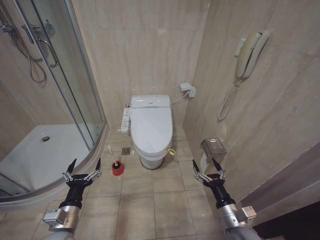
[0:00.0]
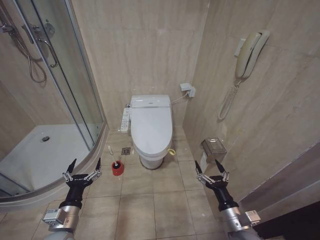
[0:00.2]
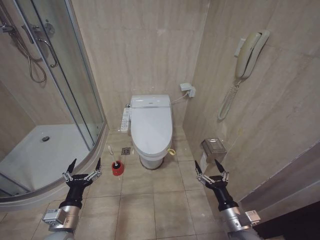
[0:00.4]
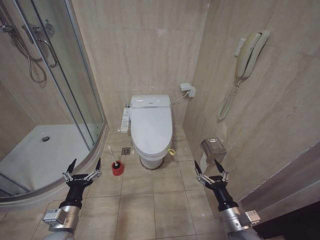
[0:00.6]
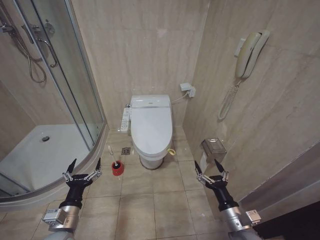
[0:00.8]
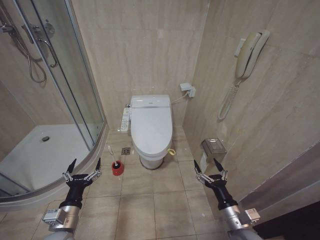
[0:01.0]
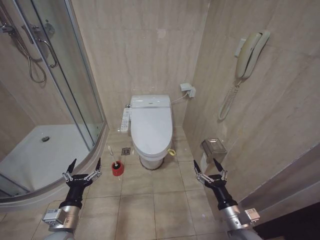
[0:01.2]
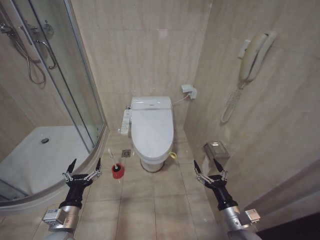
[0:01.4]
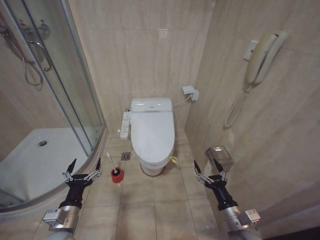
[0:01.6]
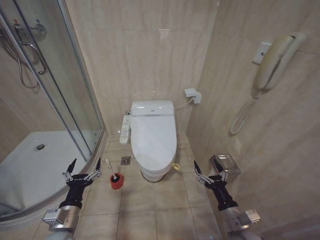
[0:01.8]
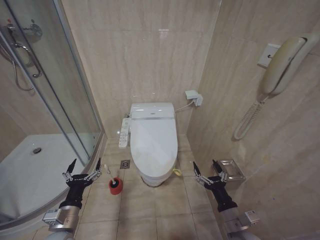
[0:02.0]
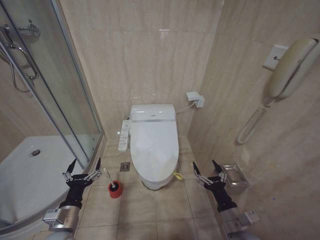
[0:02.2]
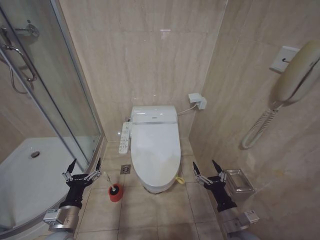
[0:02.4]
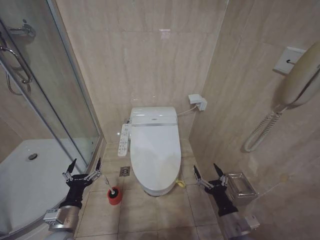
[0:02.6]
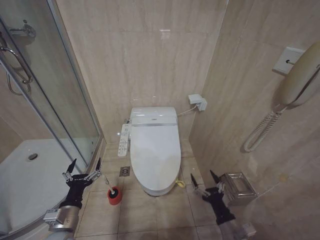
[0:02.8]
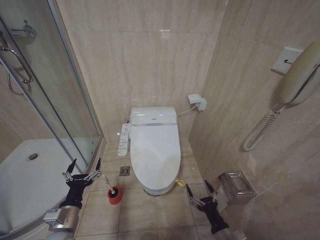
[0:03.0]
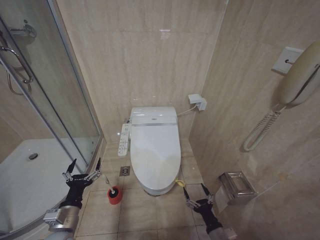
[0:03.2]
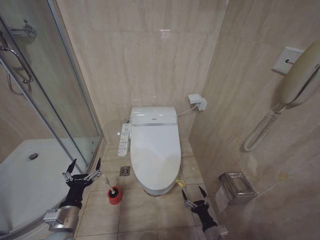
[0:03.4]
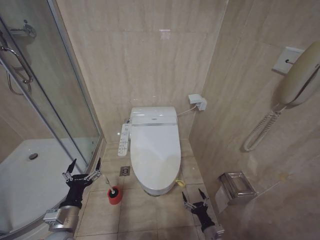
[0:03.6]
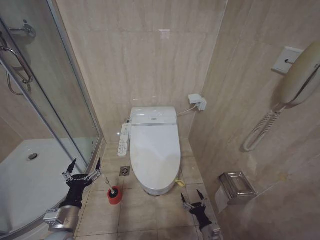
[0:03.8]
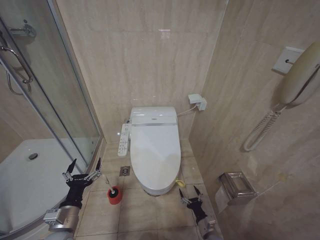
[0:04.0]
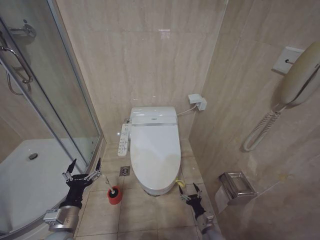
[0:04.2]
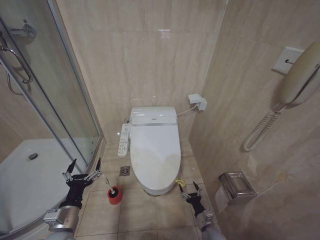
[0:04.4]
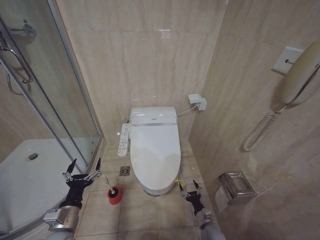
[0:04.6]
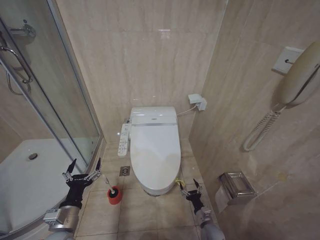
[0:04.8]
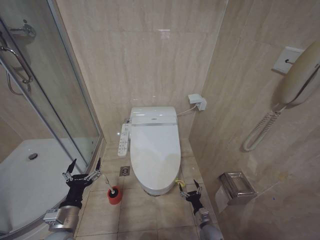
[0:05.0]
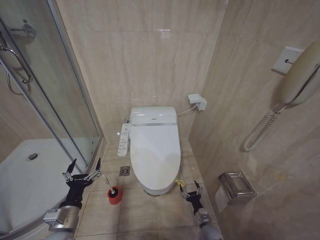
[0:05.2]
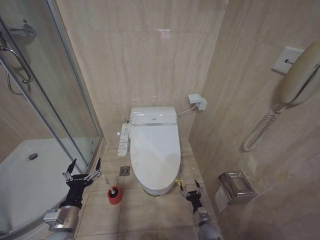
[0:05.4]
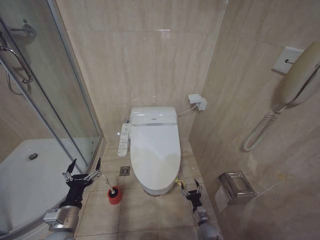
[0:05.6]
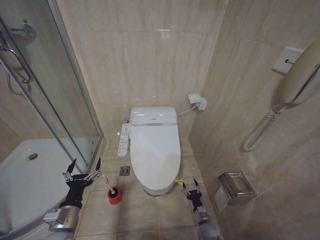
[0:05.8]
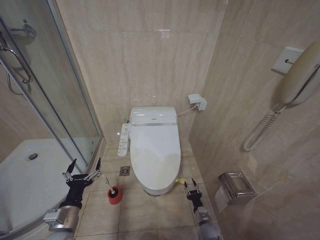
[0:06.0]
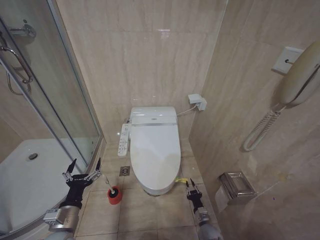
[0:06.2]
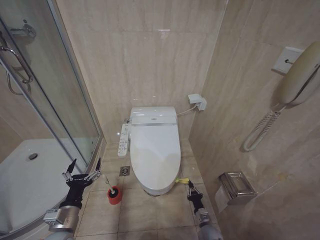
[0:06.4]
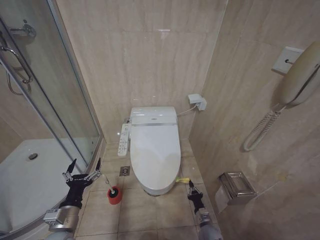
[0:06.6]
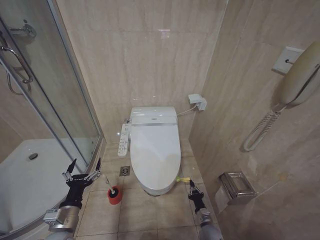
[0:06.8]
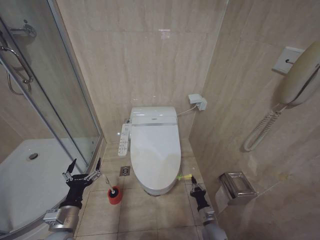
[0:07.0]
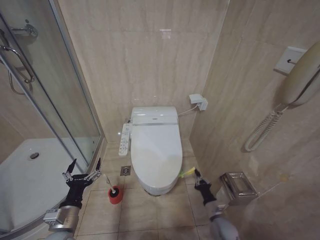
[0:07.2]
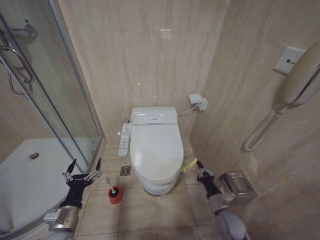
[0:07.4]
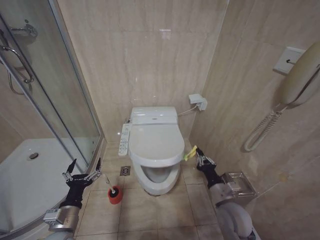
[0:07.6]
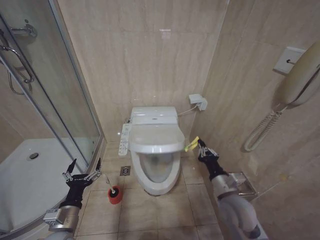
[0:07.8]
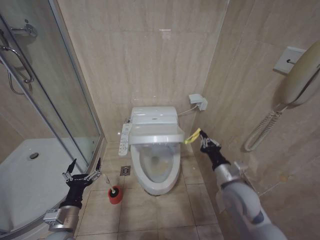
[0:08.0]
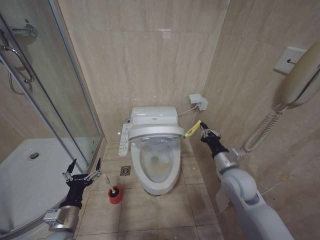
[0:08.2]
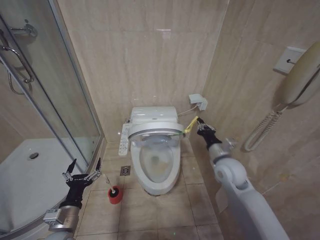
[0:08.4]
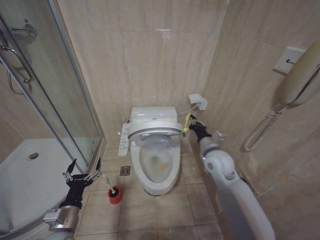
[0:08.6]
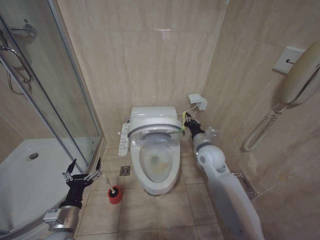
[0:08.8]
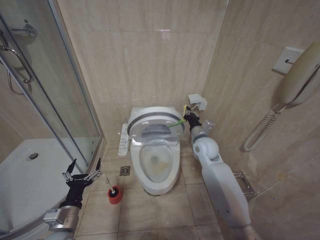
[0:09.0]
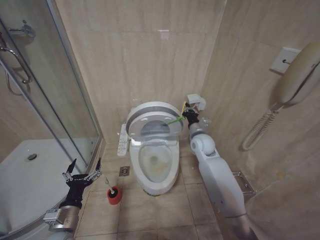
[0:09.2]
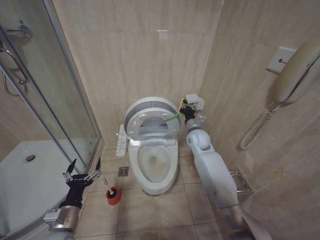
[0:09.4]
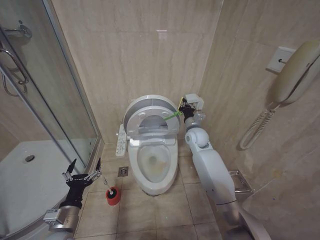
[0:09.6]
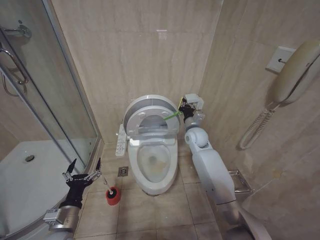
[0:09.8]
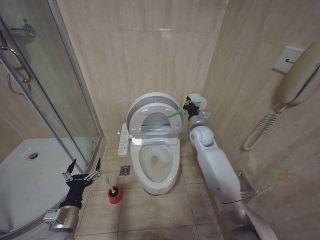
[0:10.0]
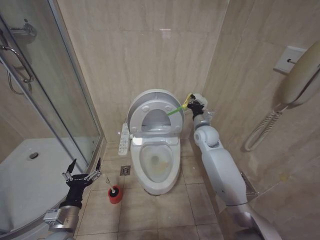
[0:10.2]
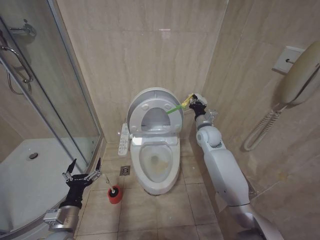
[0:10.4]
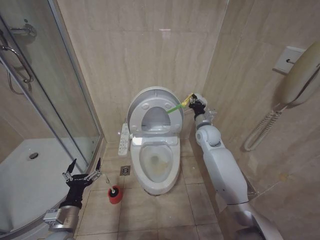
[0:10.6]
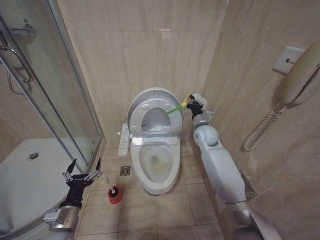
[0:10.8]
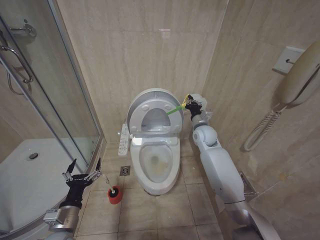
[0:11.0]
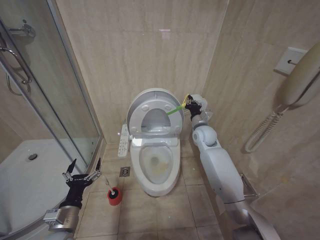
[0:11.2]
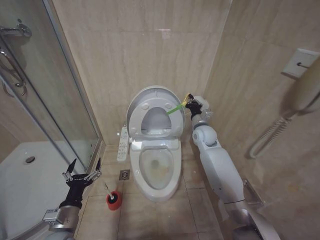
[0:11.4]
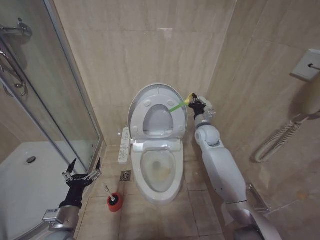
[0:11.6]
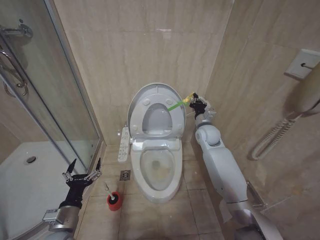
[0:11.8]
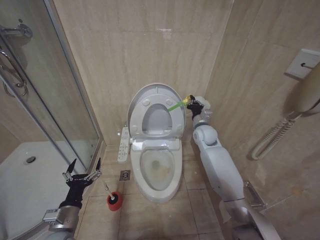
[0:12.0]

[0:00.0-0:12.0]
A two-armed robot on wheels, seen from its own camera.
Task of the whole recording: Open the toilet lid, clean the toilet bowl with a toilet brush, close the toilet lid, and flush.
0:01.6 to 0:03.0: The right gripper heads downward, covering about 5 cm.
0:03.0 to 0:04.4: The right gripper goes about 20 cm downward and forward.
0:06.0 to 0:07.6: The right gripper goes some 25 cm upward, and closes.
0:07.6 to 0:09.0: The right gripper heads forward and upward, covering some 25 cm.
0:09.0 to 0:10.4: The right gripper goes roughly 5 cm forward.
0:10.4 to 0:12.0: The grippers stay close to where they were, moving slightly.

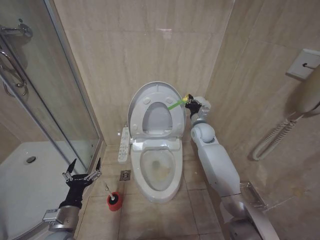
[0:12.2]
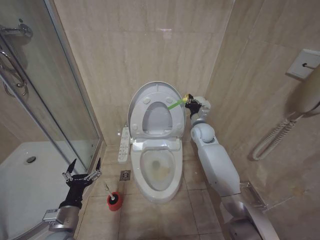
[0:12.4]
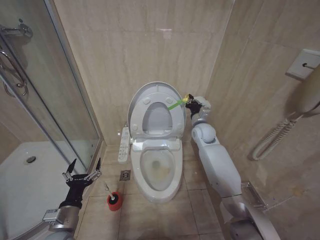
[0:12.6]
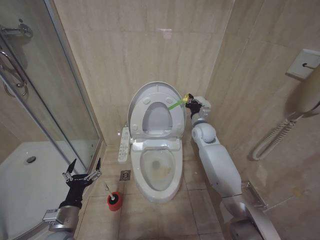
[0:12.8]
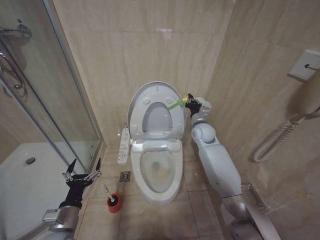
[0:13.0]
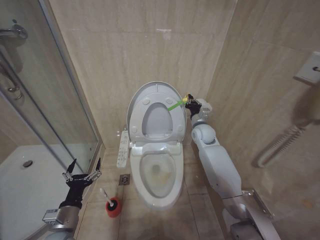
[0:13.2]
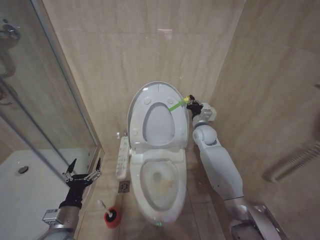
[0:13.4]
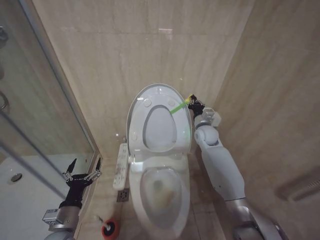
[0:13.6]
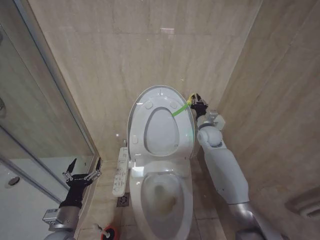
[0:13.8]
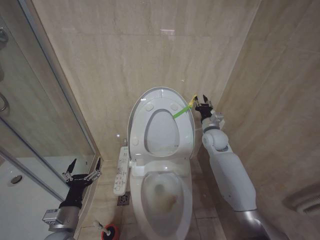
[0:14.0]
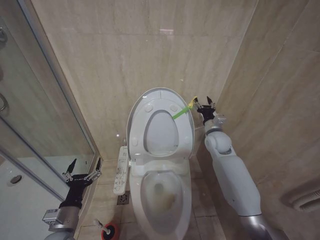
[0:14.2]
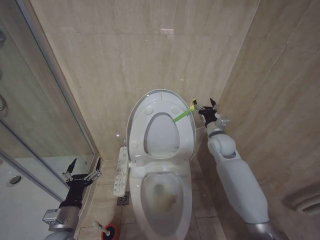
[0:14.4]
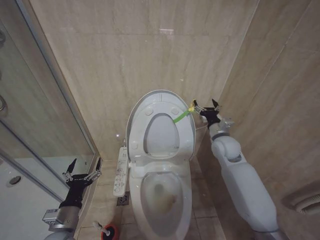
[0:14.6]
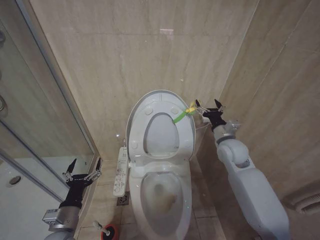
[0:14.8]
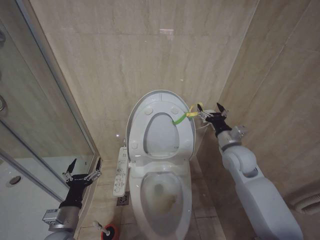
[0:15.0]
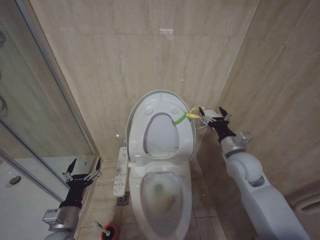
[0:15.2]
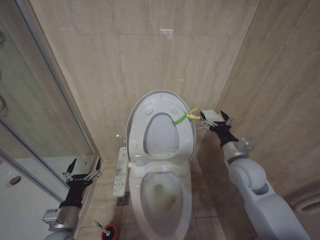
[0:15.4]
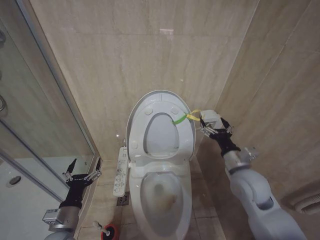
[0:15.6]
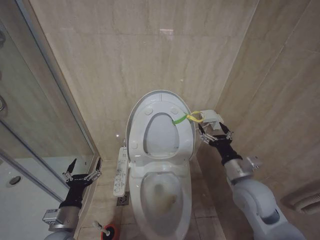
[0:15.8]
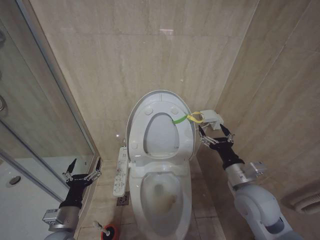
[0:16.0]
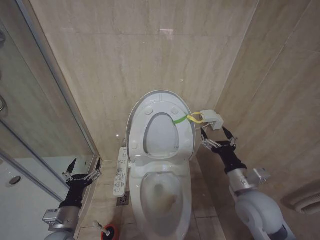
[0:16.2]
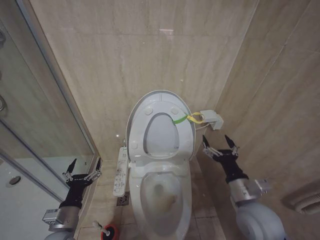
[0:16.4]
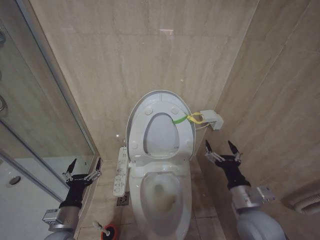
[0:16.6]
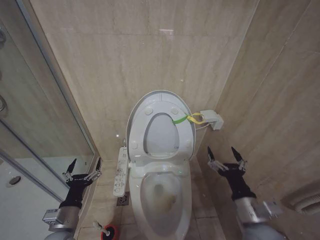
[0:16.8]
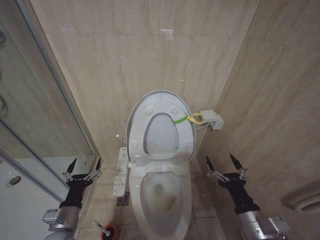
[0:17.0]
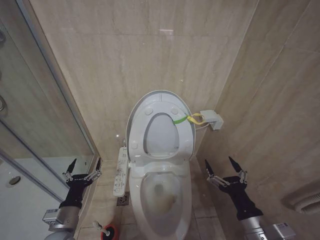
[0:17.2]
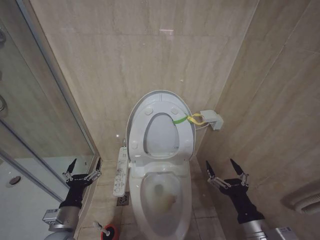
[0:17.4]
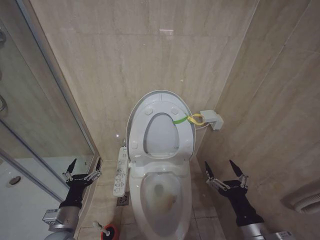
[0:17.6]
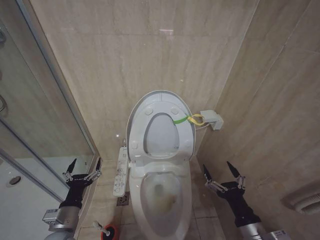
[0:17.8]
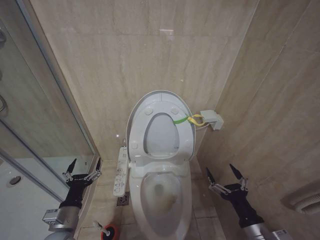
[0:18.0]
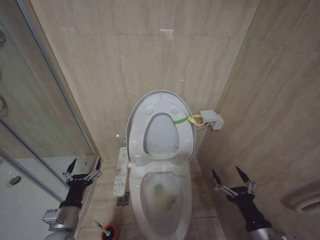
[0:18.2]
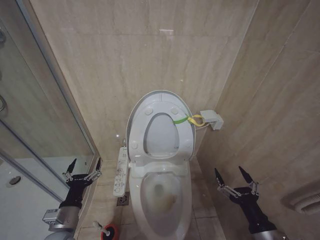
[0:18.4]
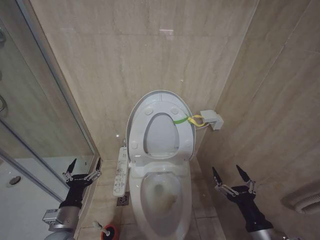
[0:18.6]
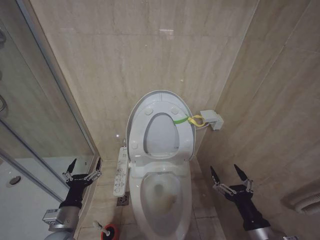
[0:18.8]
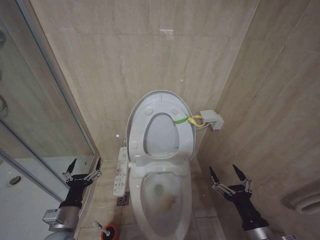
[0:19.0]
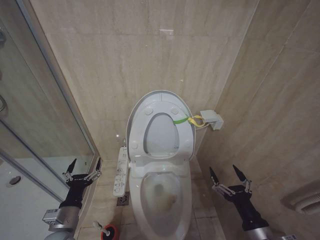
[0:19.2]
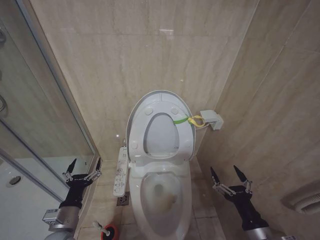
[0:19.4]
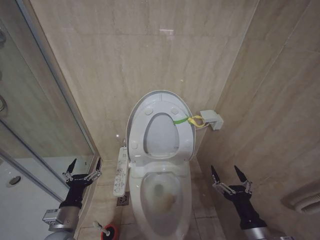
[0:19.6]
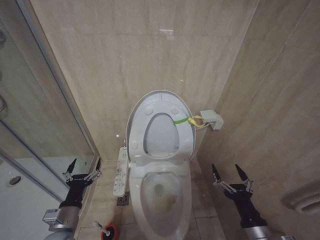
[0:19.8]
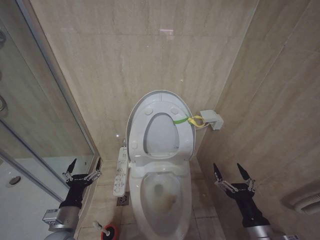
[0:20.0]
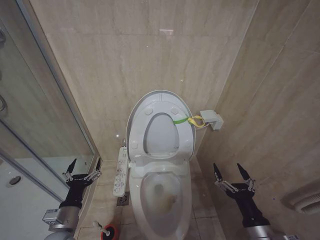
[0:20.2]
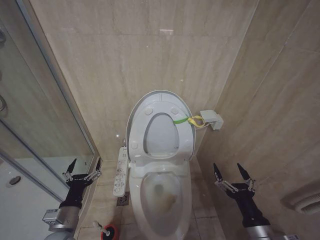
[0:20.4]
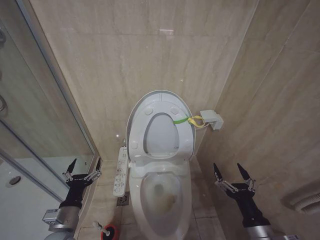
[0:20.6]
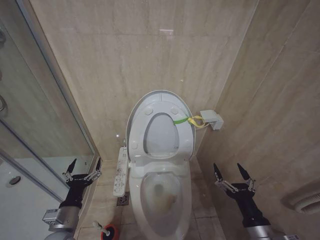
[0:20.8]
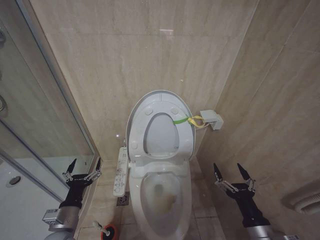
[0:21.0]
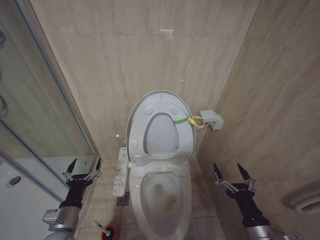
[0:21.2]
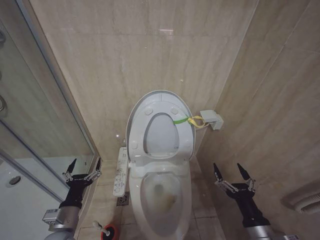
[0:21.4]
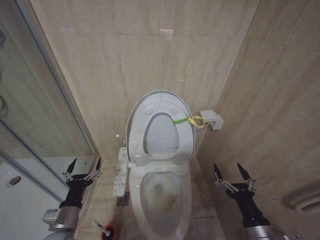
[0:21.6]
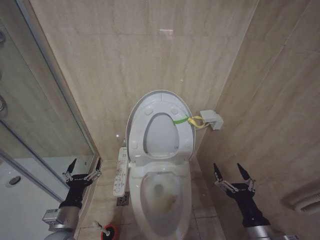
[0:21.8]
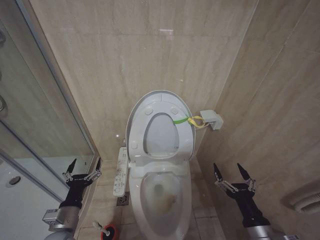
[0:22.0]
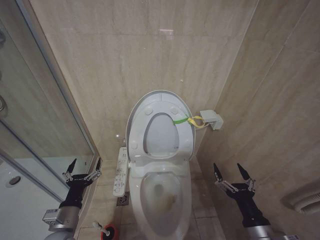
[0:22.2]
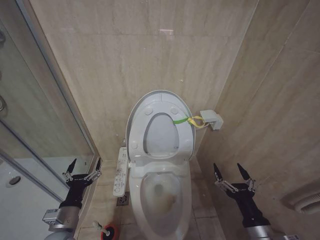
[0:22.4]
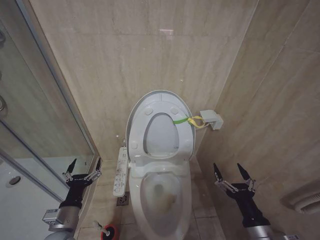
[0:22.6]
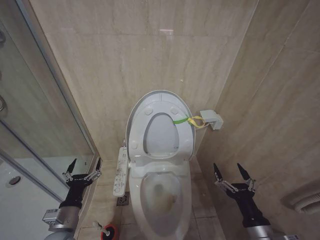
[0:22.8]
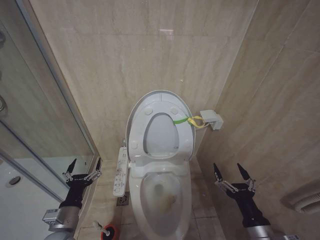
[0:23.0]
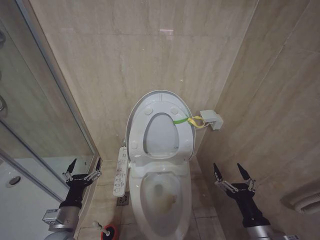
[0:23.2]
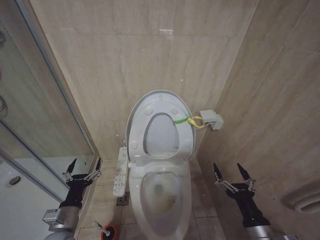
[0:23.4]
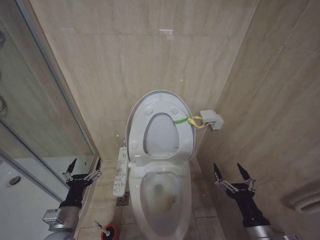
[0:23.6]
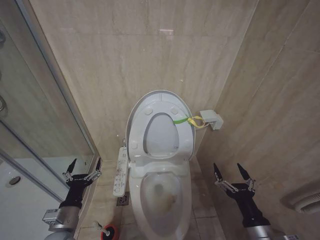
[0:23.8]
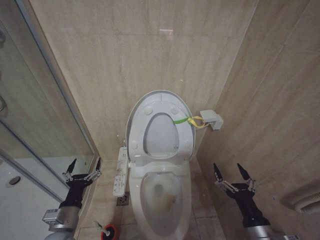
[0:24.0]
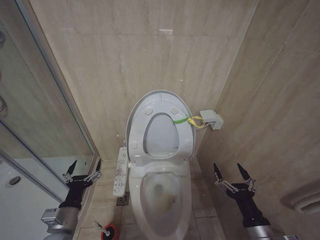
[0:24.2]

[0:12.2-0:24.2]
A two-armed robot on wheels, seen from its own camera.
Task of the whole recording: Open the toilet lid, clean the toilet bowl with a toilet brush, close the toilet lid, and flush.
0:13.8 to 0:15.2: The right gripper is displaced backward by approximately 15 cm, and opens its fingers.
0:15.2 to 0:16.6: The right gripper shifts roughly 15 cm backward and downward.
0:16.6 to 0:18.2: The right gripper is displaced backward by approximately 10 cm.
0:19.8 to 0:24.2: Both grippers stay put.
